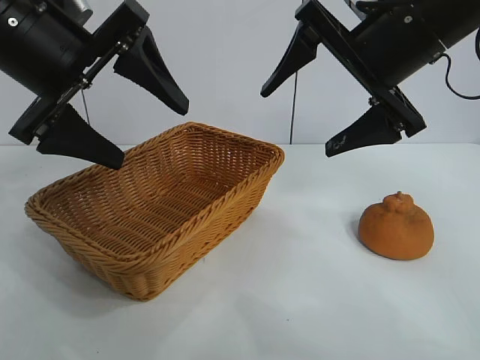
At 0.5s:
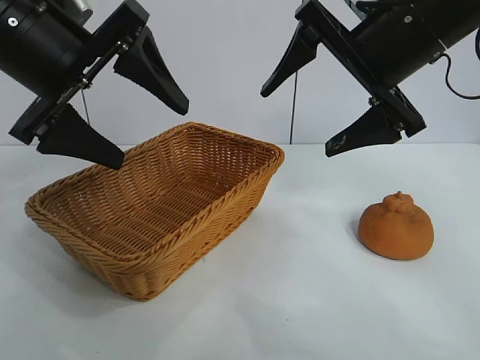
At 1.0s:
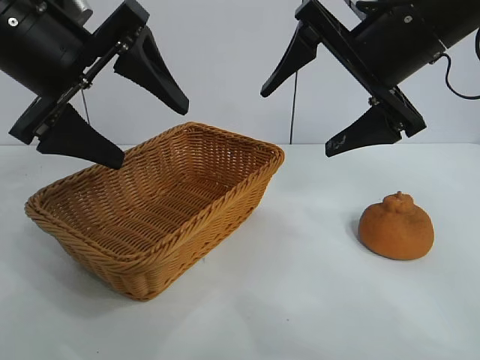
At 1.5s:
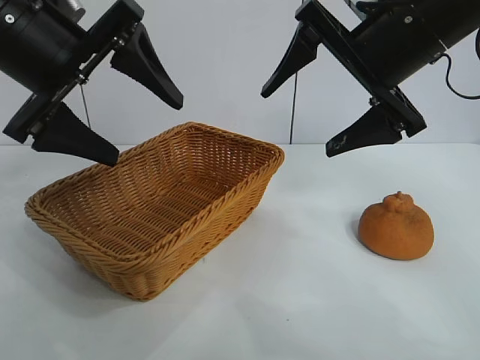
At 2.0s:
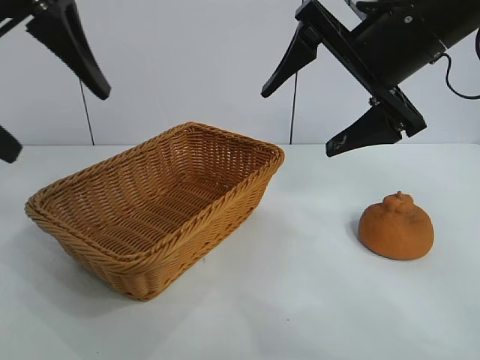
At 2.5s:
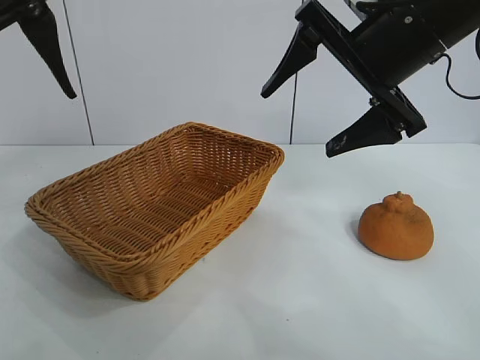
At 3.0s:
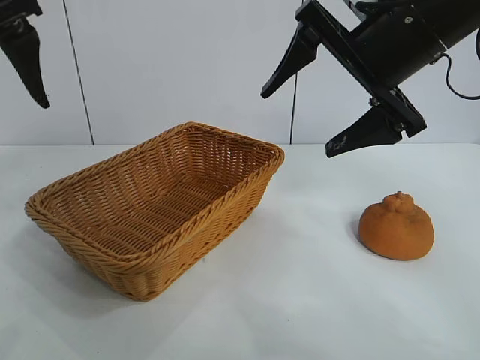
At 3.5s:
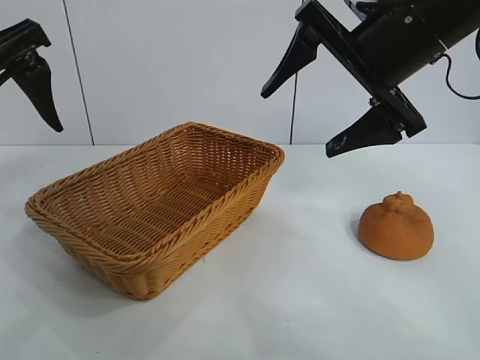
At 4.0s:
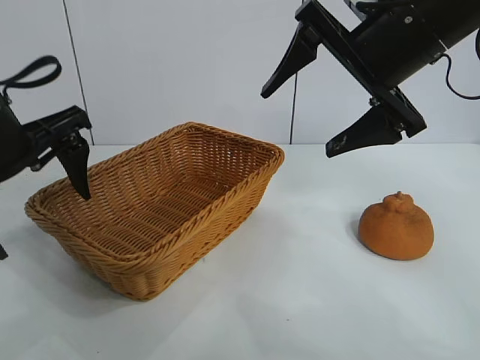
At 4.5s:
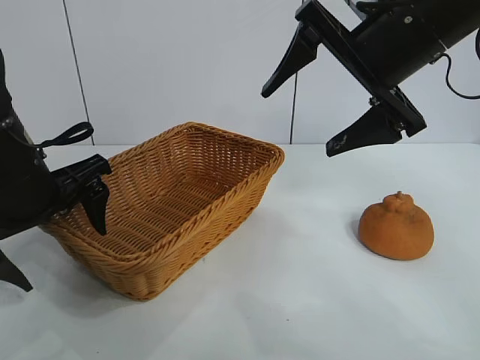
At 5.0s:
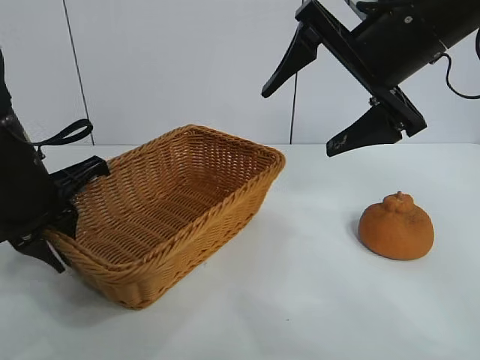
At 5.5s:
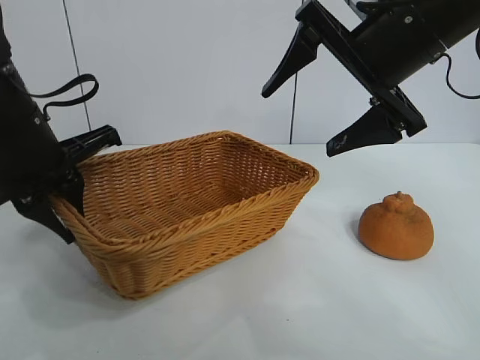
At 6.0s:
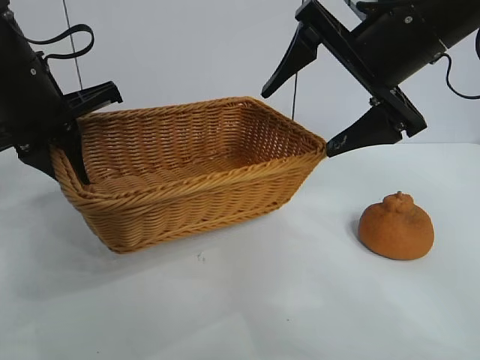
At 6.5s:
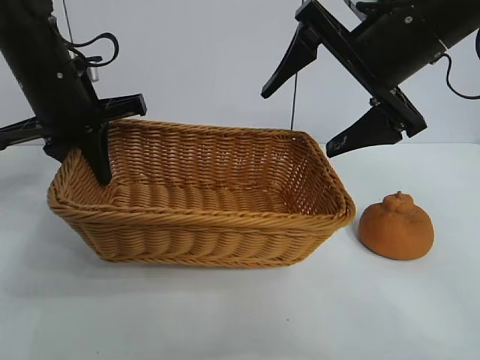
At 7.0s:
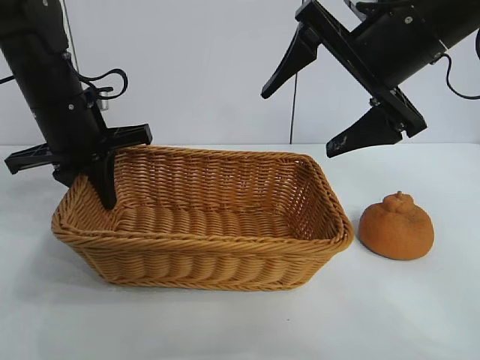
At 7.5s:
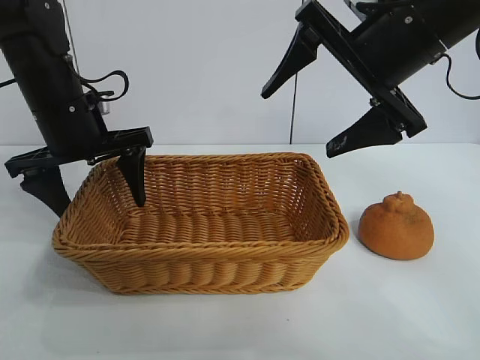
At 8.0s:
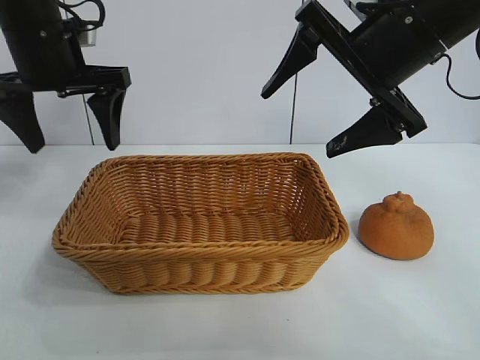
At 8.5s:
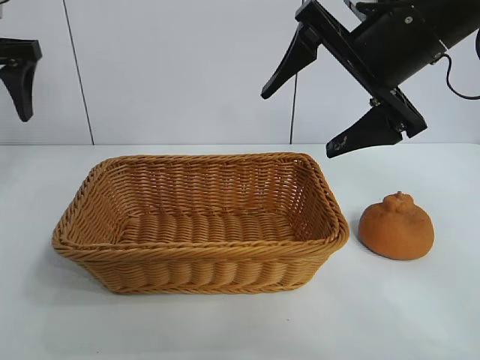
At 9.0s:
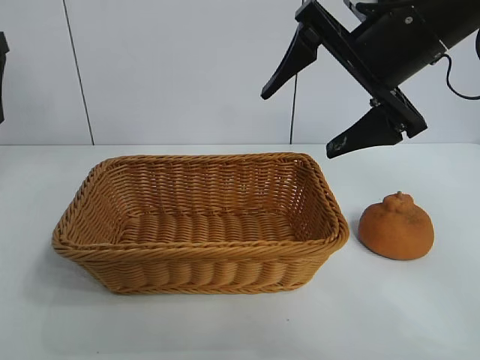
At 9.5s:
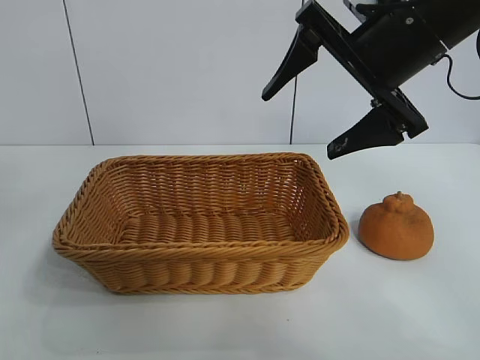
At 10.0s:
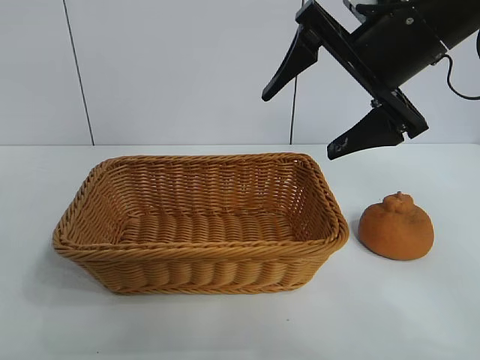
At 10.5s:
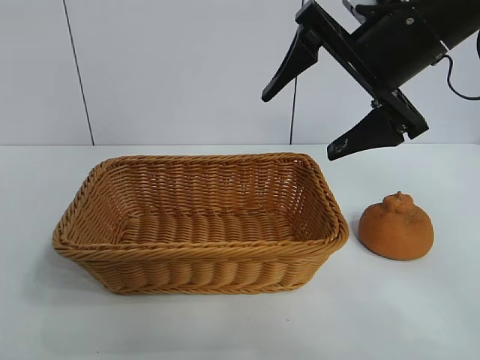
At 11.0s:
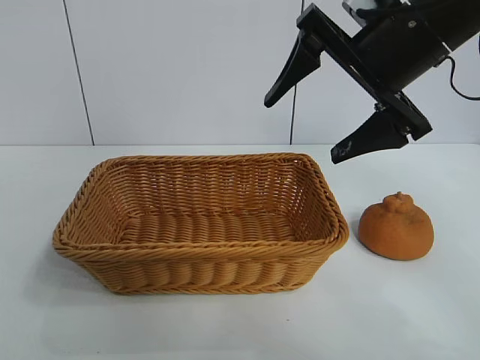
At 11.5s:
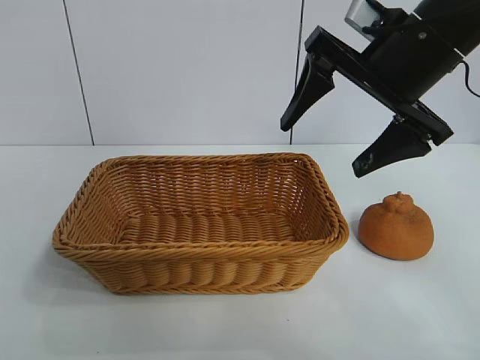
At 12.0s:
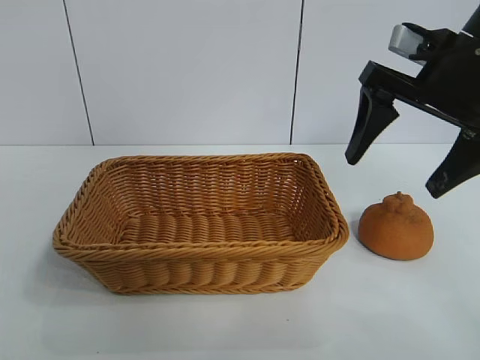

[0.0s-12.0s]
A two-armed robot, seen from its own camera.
Task of the whole recording: pick up the orange and put it into the basket.
Step, 1.5s to 5.0s: Grasp the basket with left gripper.
Step, 5.5s to 8.0s: Place the basket in the center of view with left gripper.

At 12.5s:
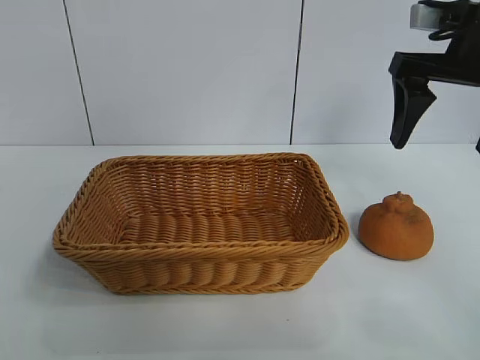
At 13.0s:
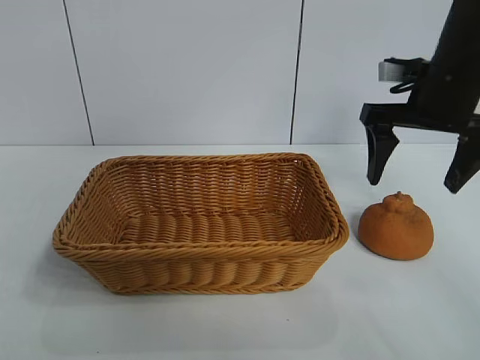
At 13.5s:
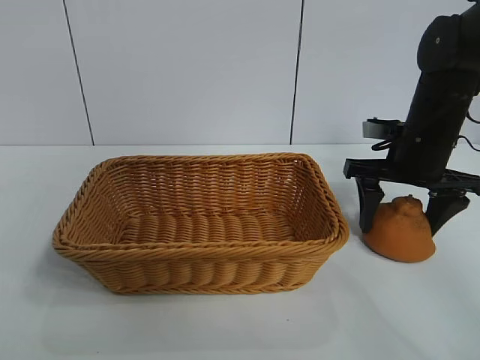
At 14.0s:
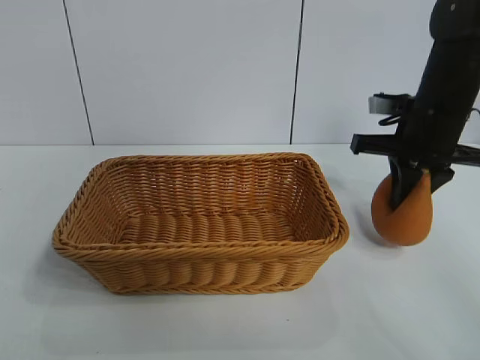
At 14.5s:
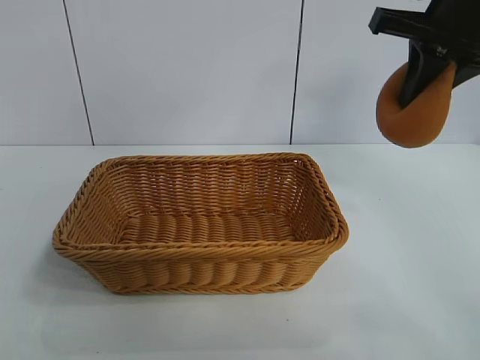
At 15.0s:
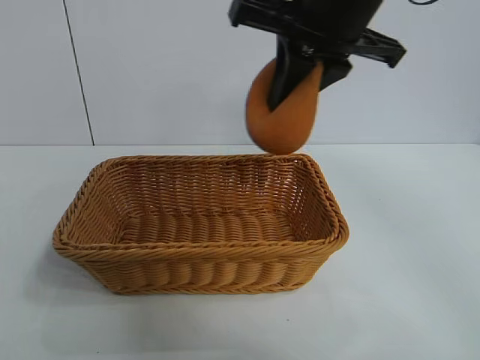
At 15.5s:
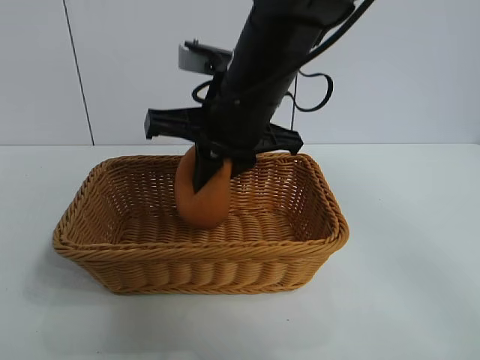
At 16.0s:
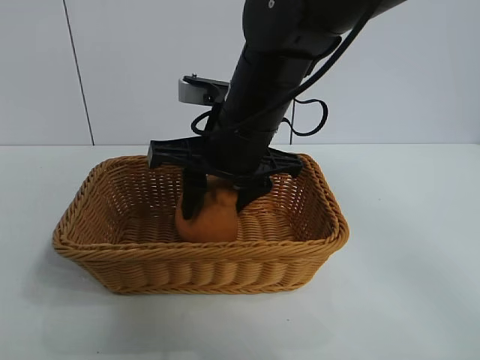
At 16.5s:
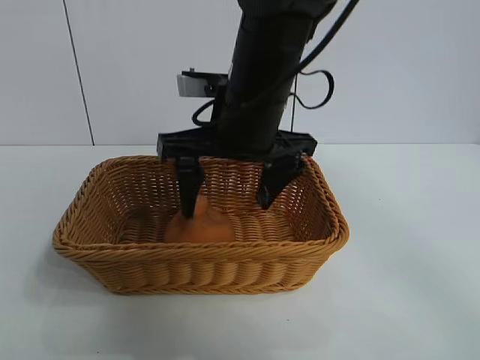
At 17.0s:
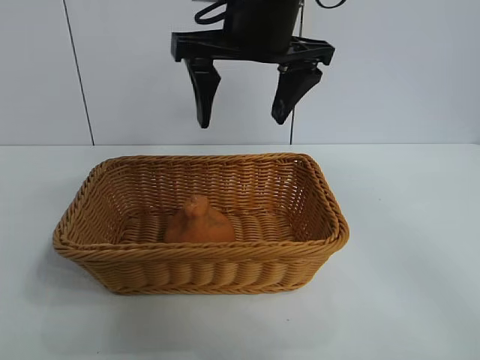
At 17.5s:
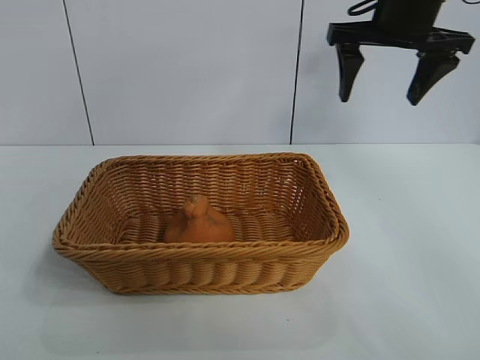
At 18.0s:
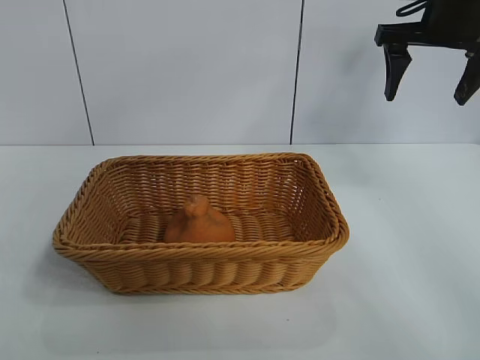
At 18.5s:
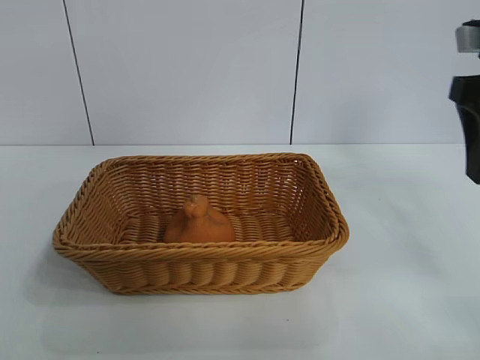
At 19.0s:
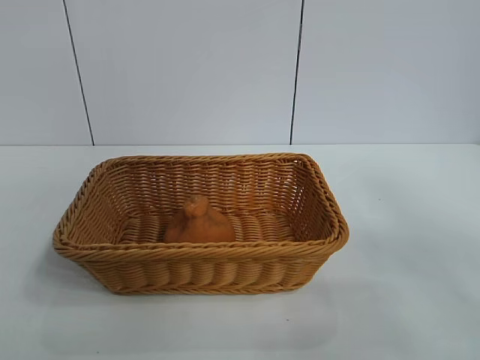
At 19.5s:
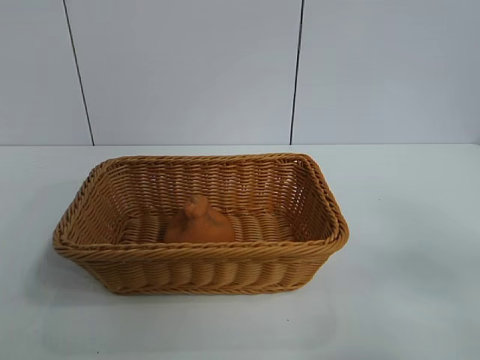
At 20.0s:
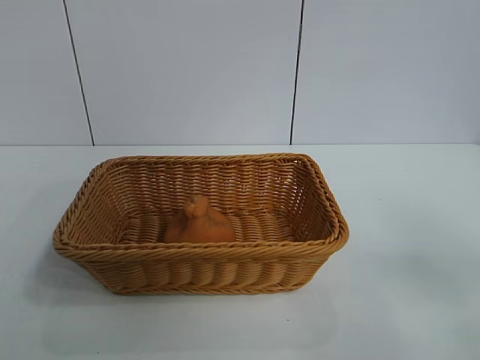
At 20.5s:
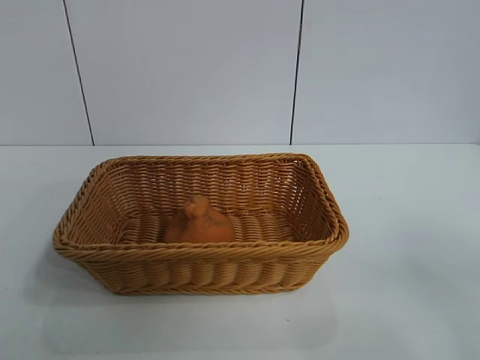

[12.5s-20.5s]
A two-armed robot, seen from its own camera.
Task of the whole recording: pick up the orange and put it into the basket.
Step, 14.0s to 16.5s: Place the orange in the basket with right gripper.
